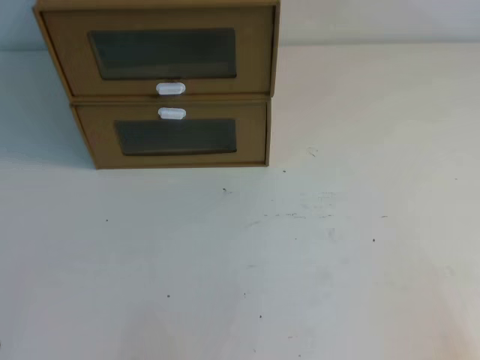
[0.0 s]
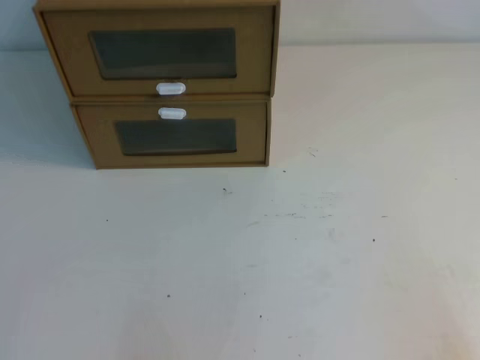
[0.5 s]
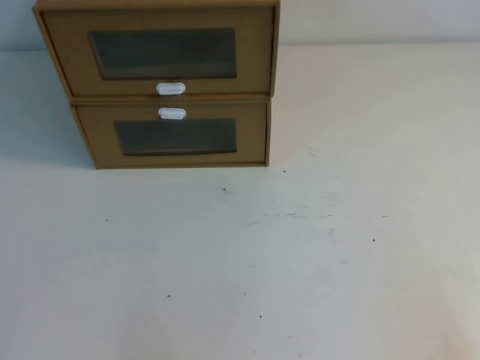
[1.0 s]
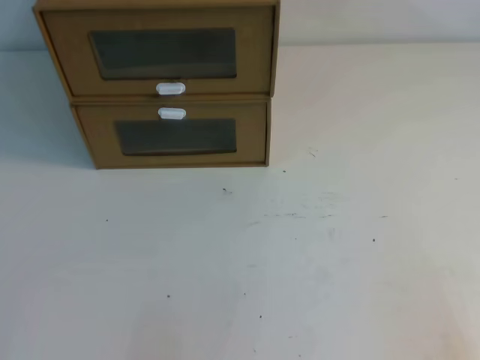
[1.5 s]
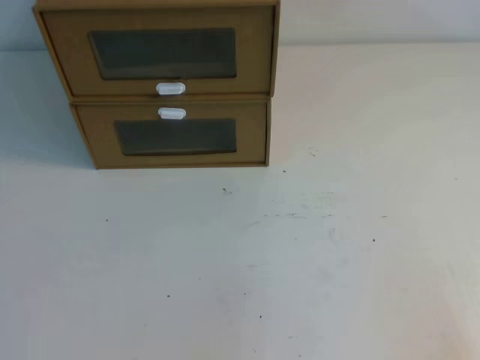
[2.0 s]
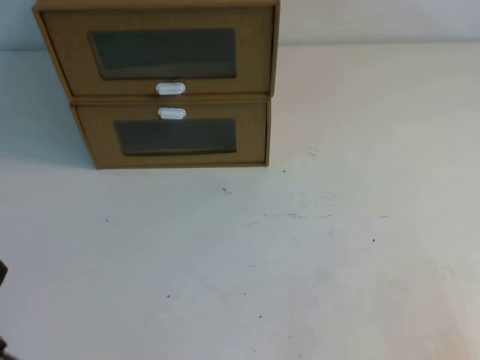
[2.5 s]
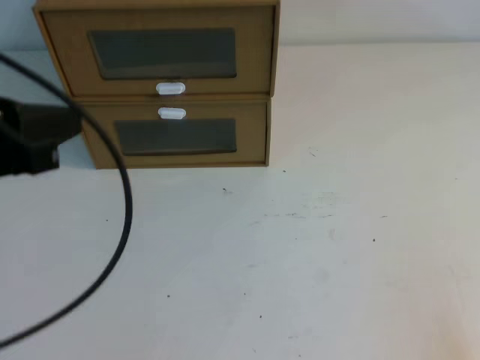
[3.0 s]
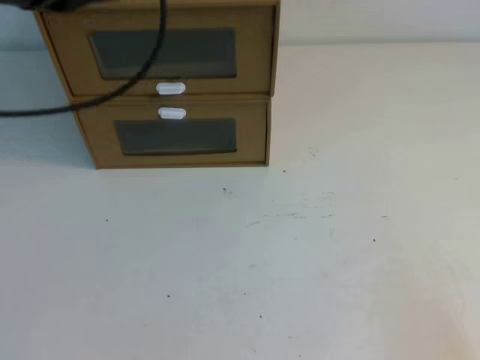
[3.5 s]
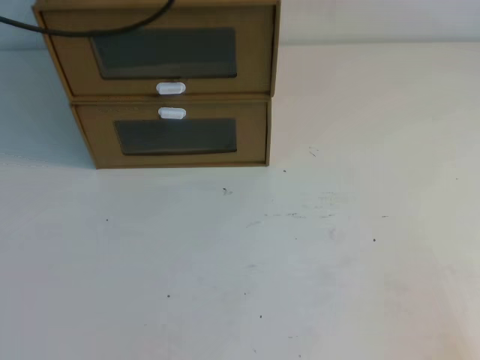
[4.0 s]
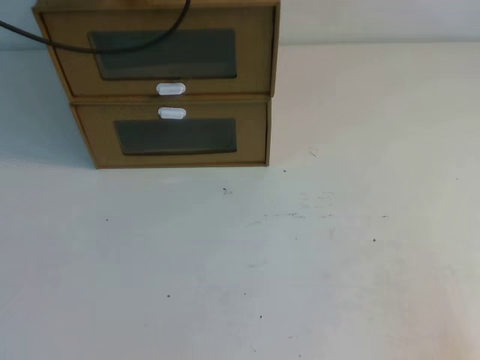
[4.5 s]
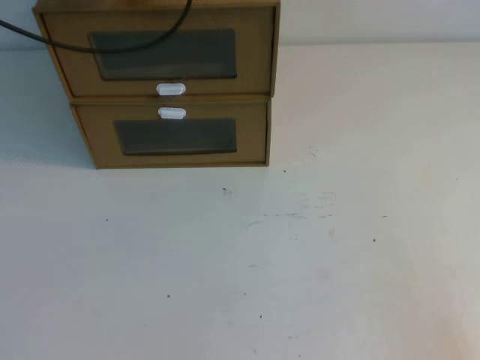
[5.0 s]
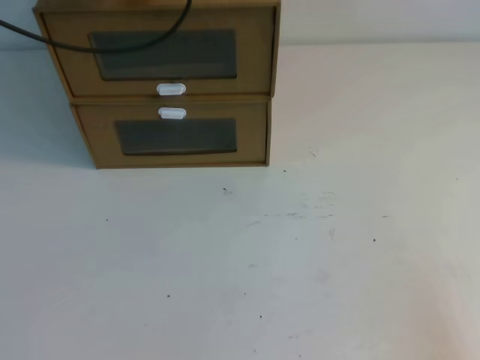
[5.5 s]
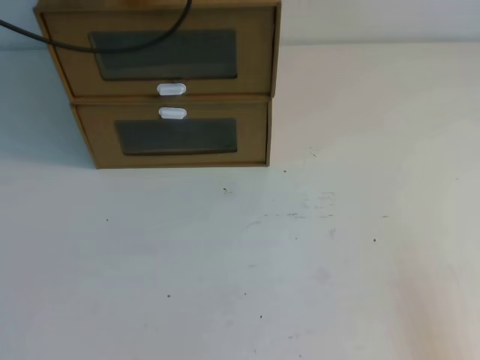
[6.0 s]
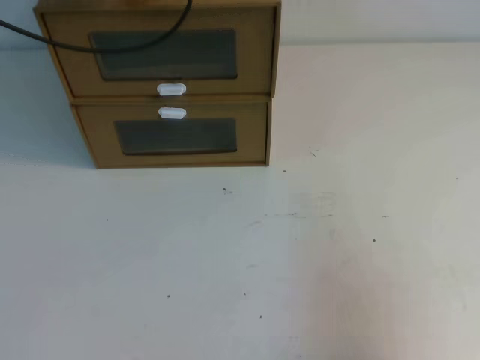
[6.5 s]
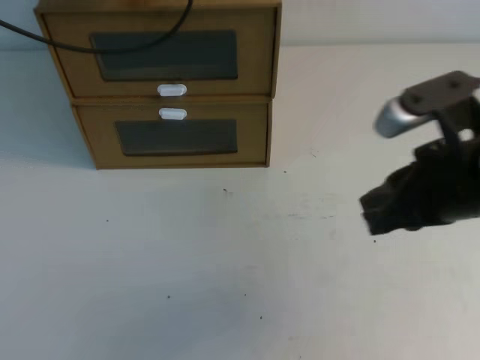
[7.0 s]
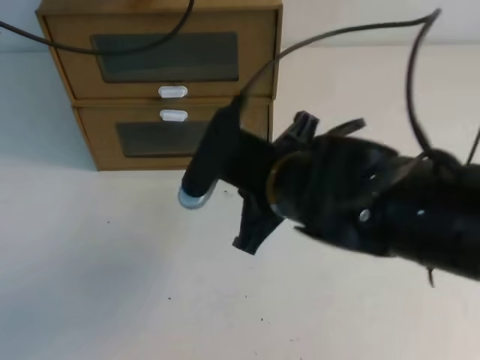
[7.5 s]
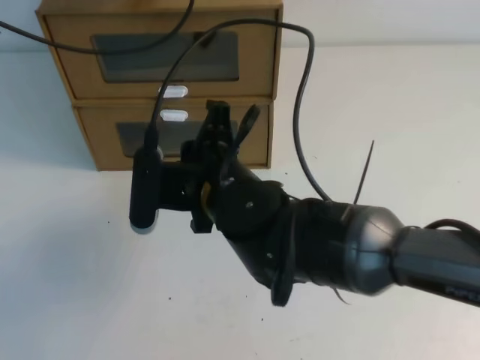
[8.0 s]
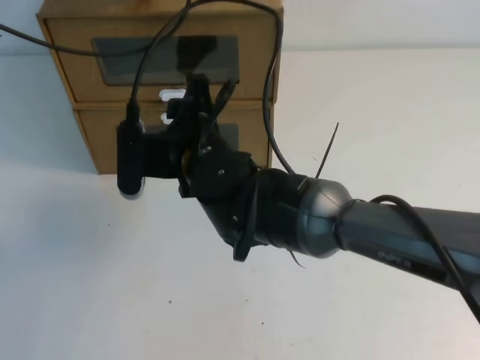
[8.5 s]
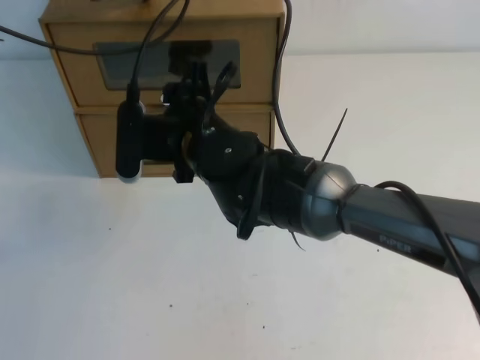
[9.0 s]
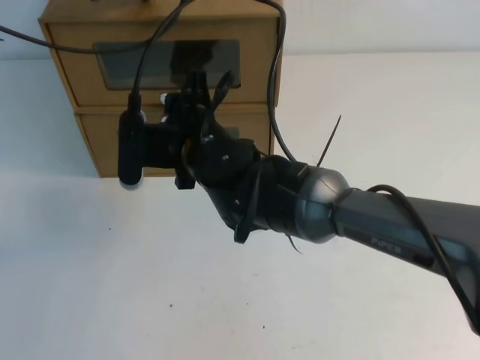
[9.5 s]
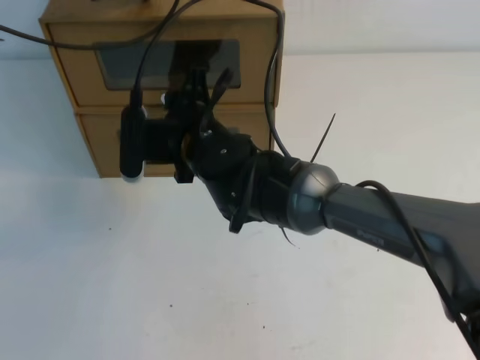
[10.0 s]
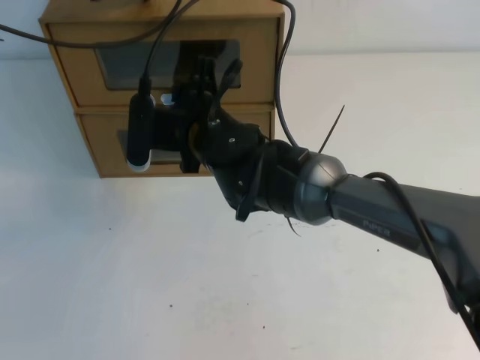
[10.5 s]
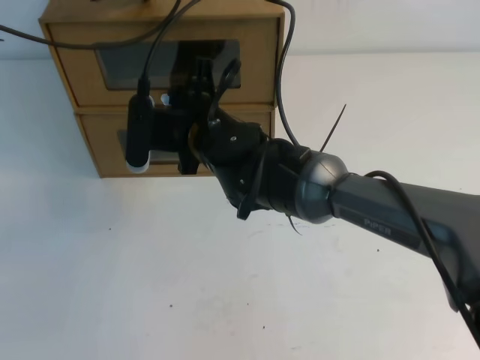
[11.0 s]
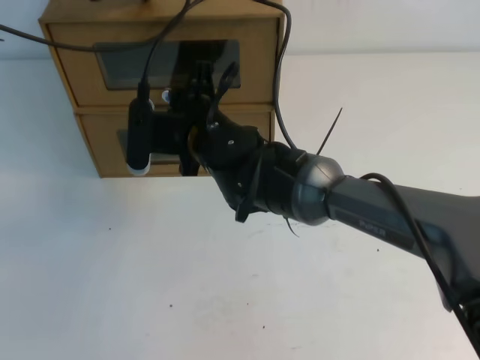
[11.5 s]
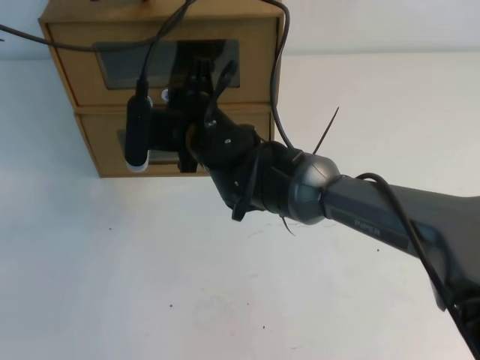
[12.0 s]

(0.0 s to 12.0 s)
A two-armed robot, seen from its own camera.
Task of the whole recording: open the shoebox on the table.
4.0 s - 6.0 s: The left gripper shifts by approximately 5 cm.
6.0 s - 8.0 s: The right gripper goes roughly 40 cm to the left and forward.
8.0 s - 10.0 s: The right gripper travels forward by some 10 cm, and opens up.
10.0 s - 12.0 s: The right gripper closes up.

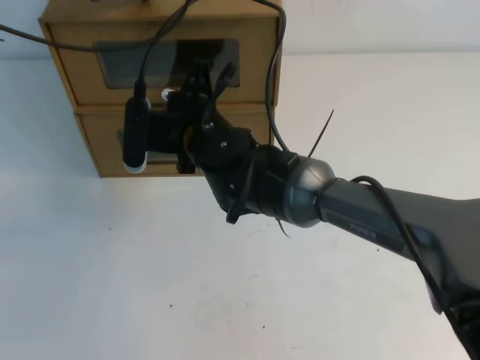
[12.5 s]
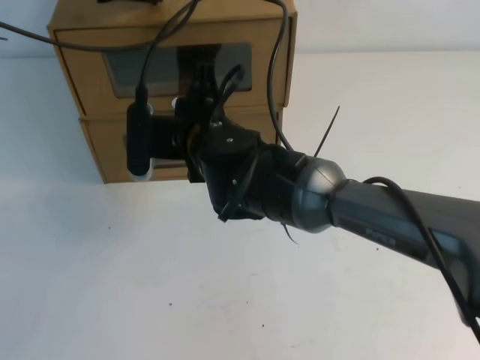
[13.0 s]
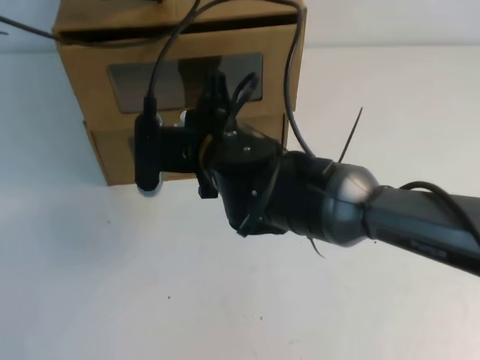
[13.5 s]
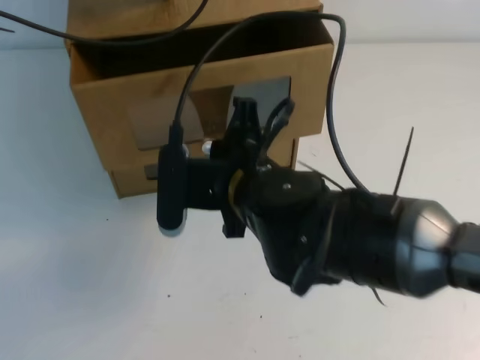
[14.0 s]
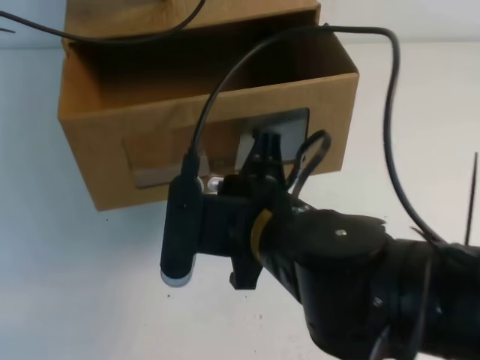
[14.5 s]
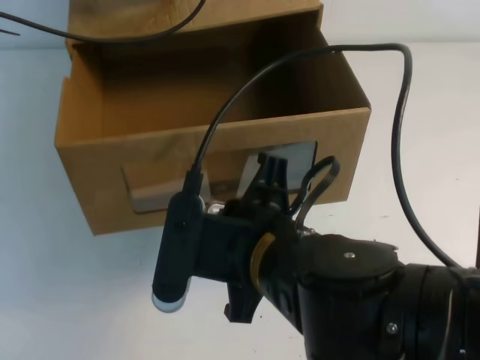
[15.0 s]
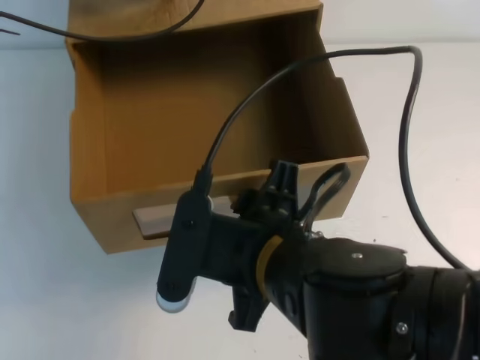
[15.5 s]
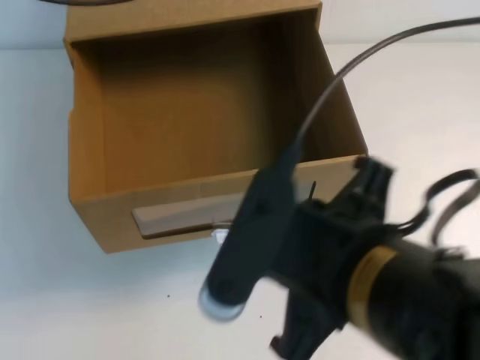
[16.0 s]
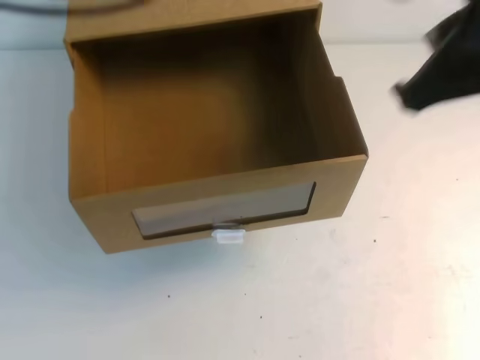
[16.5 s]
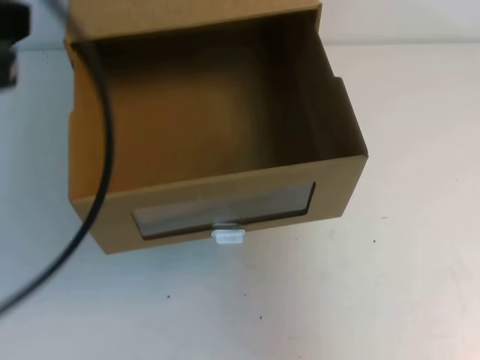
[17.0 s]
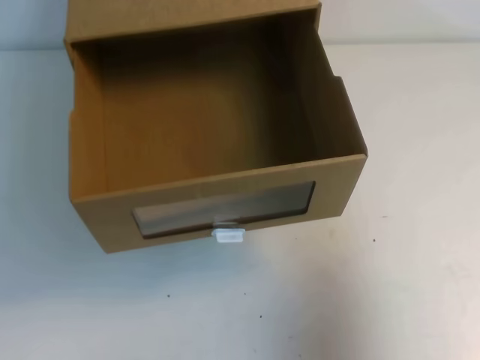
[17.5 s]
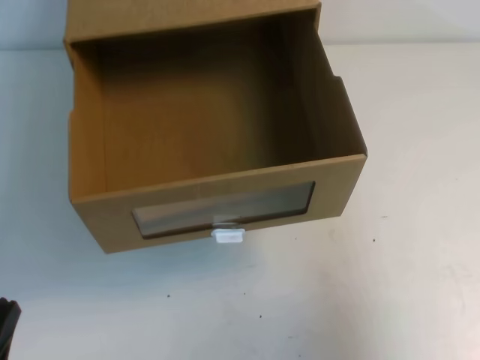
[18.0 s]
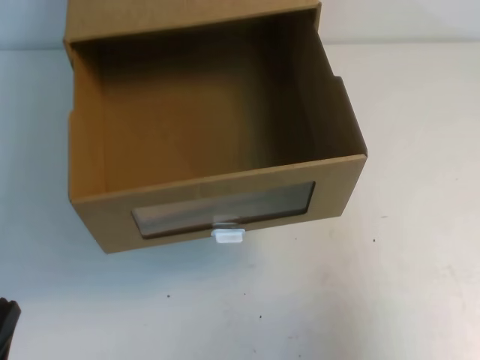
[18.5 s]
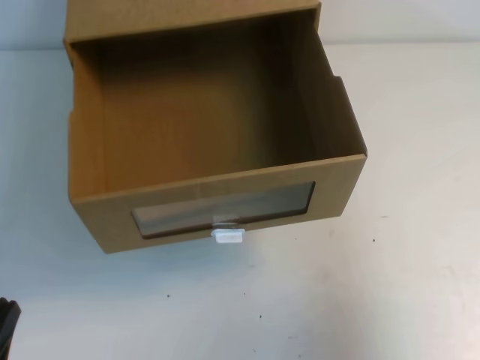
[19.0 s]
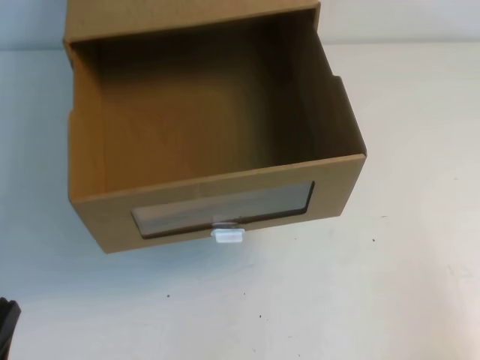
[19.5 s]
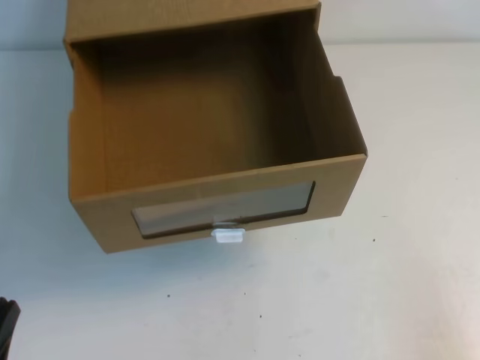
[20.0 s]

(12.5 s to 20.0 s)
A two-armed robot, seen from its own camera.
Task of the whole recording: open the shoebox on the table.
Step, 12.5 s - 20.0 s: Open the shoe box.
12.5 s - 14.5 s: The right gripper moves backward and to the right, roughly 20 cm.
14.5 s - 16.5 s: The left gripper moves upward and backward, roughly 15 cm; the right gripper is displaced upward and to the right by roughly 20 cm, and opens, then closes again.
16.5 s - 18.0 s: The right gripper travels to the right and downward by approximately 20 cm. The left gripper moves downward and backward, some 40 cm.
18.0 s - 20.0 s: The right gripper travels downward and backward by roughly 20 cm.
